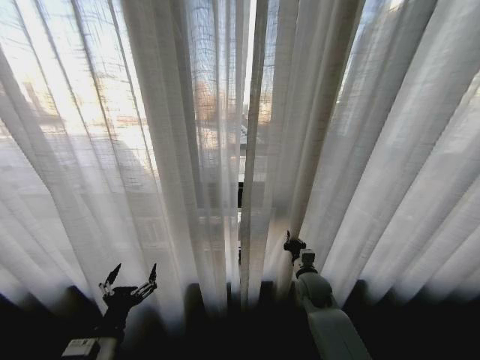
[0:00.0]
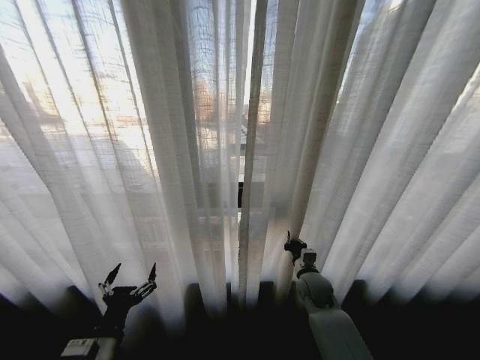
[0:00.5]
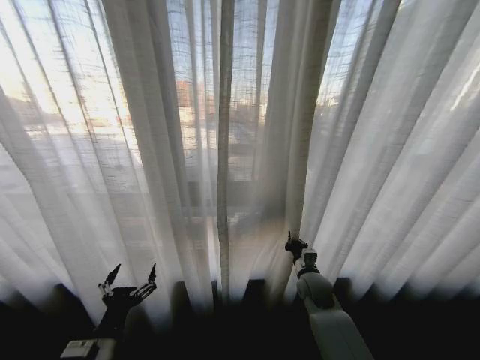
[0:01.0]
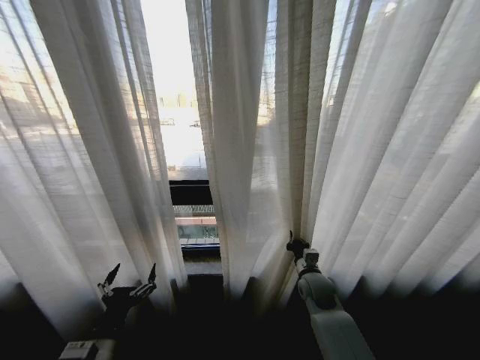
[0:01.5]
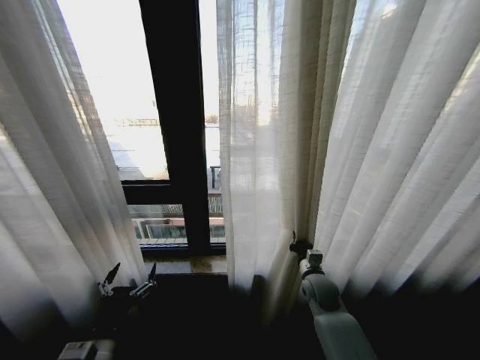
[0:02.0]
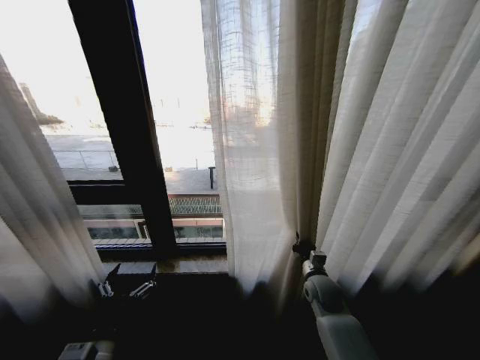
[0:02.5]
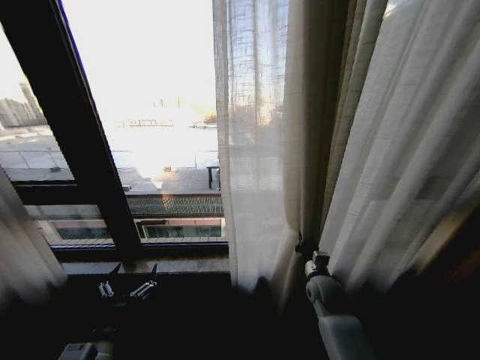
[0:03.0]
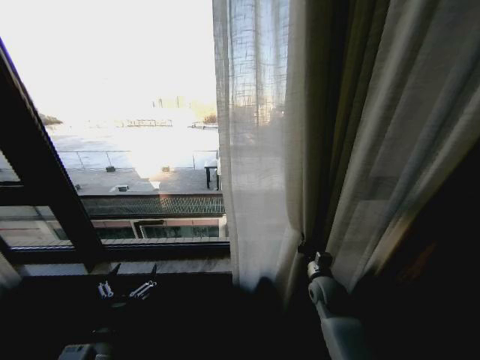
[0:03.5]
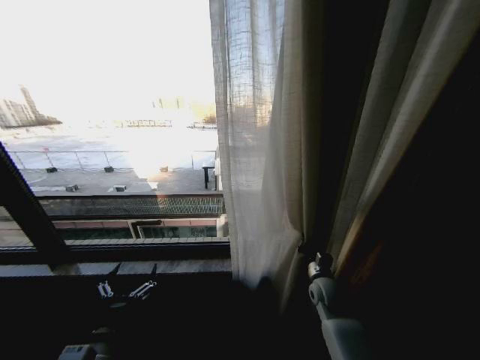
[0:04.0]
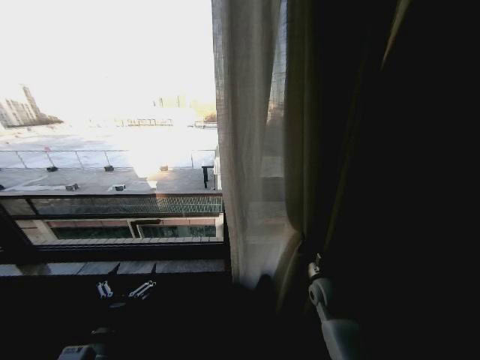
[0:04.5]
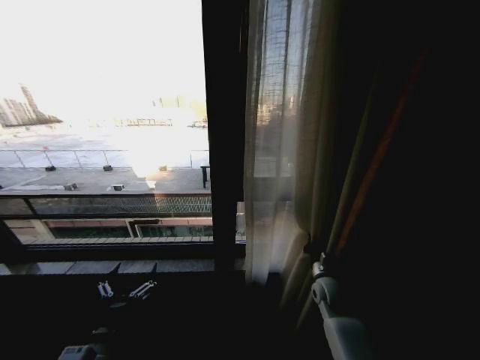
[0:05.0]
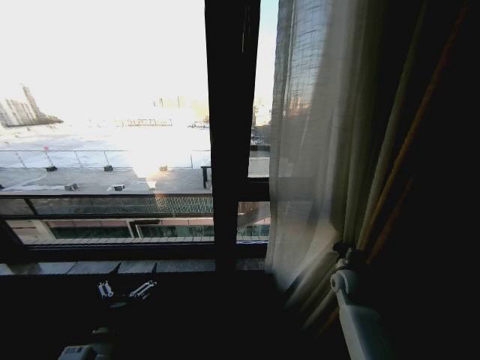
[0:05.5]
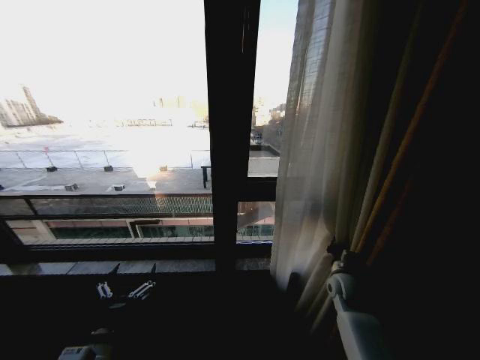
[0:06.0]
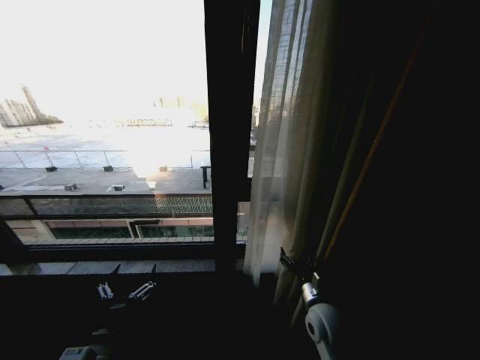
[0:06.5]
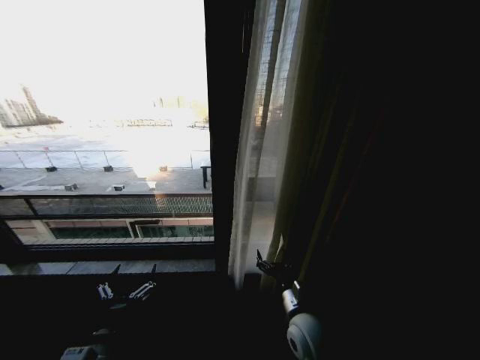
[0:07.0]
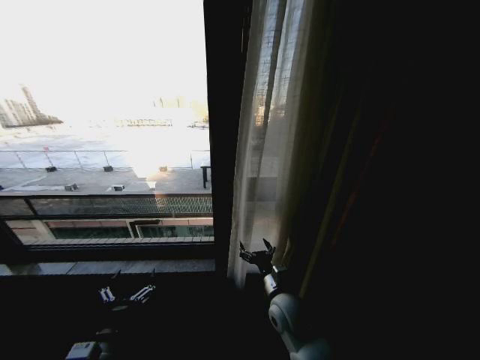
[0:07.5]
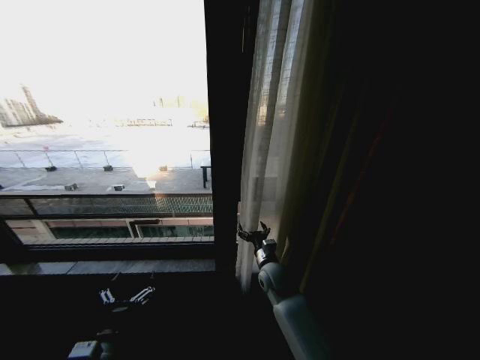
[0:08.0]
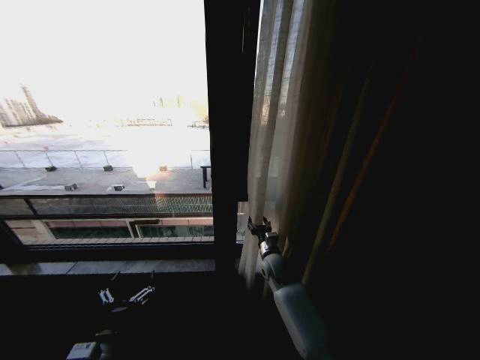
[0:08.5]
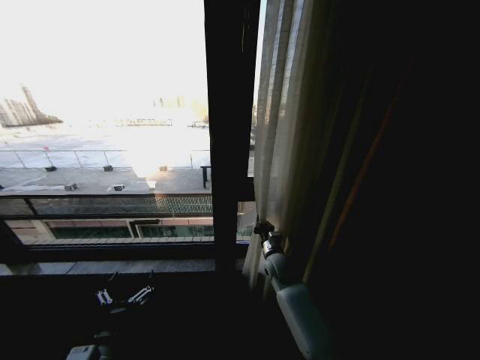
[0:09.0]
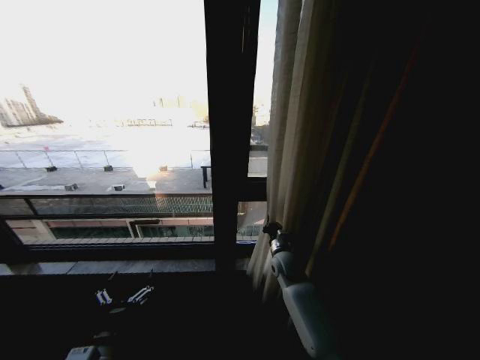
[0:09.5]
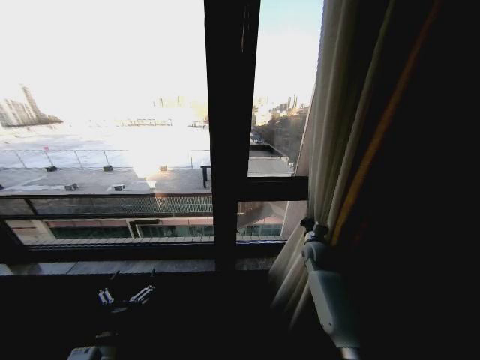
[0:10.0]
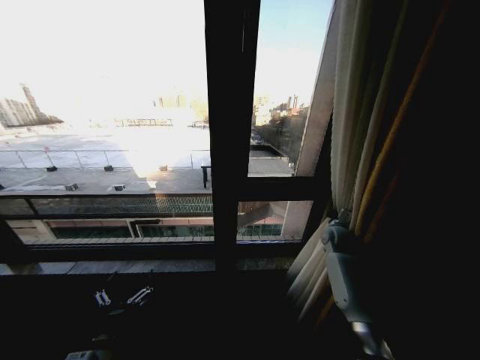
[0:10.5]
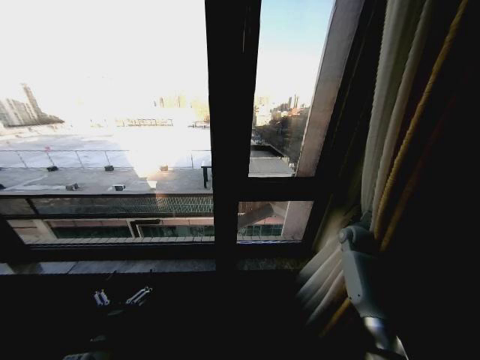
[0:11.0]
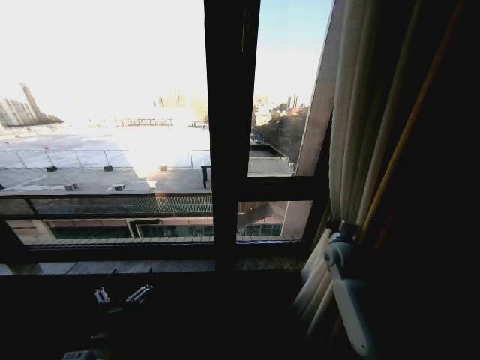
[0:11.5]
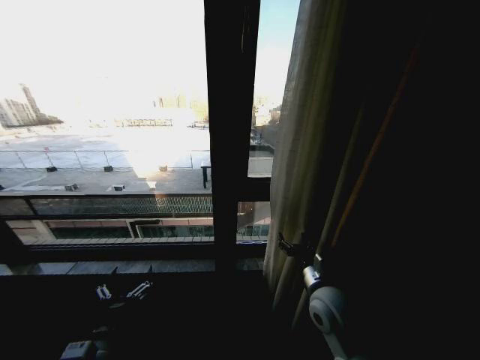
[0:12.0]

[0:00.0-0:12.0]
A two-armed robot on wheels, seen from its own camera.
Task of the whole recording: Open the curtains by pulling them apart, changing their state from closed to fully open.
0:04.0 to 0:06.0: The right gripper moves to the right, about 5 cm.
0:06.0 to 0:08.0: The right gripper is displaced to the left by about 20 cm, and opens its fingers.
0:08.0 to 0:10.0: The right gripper moves to the right and forward, about 20 cm, and closes up.
0:10.0 to 0:12.0: The right gripper moves backward and to the left, approximately 20 cm, and opens.

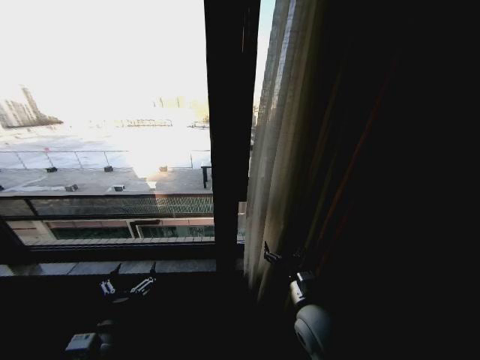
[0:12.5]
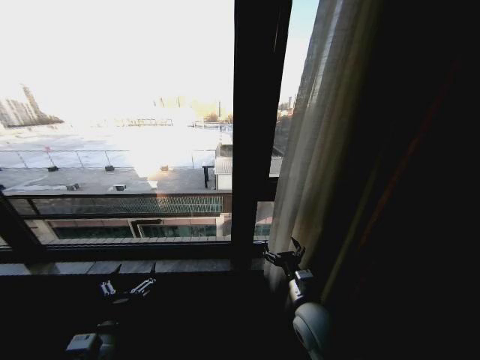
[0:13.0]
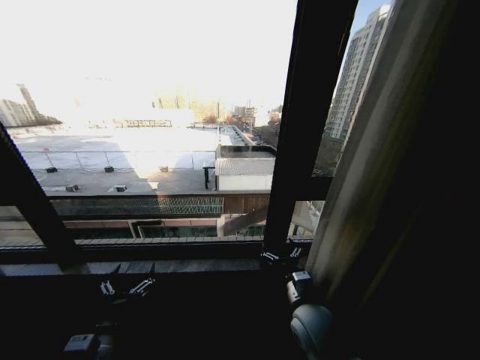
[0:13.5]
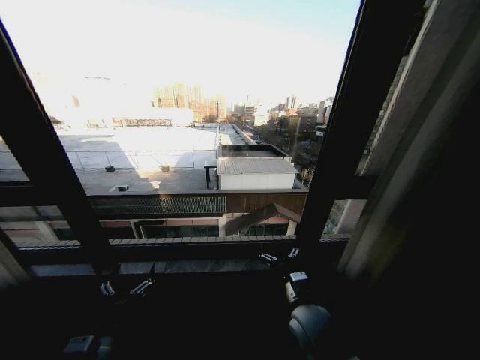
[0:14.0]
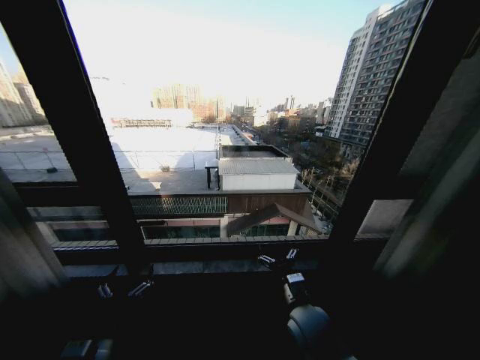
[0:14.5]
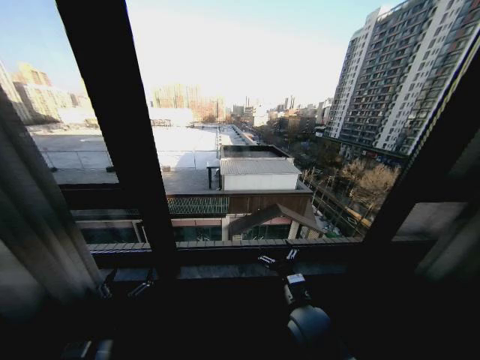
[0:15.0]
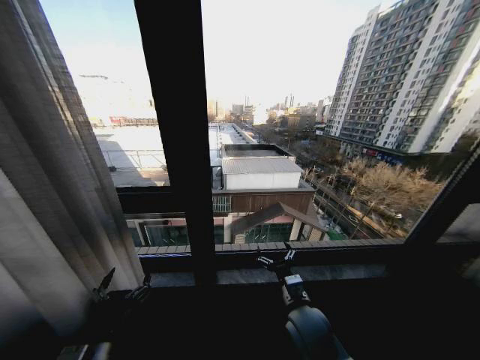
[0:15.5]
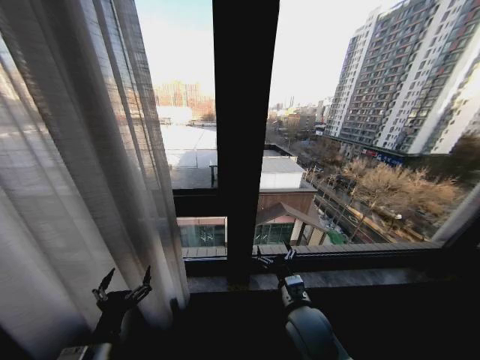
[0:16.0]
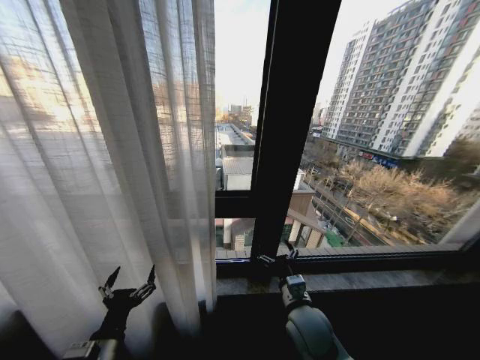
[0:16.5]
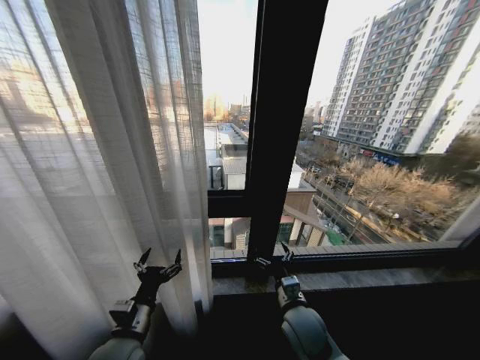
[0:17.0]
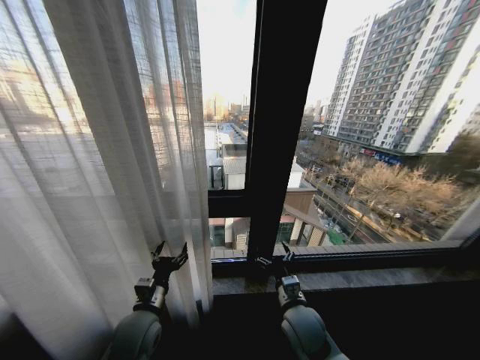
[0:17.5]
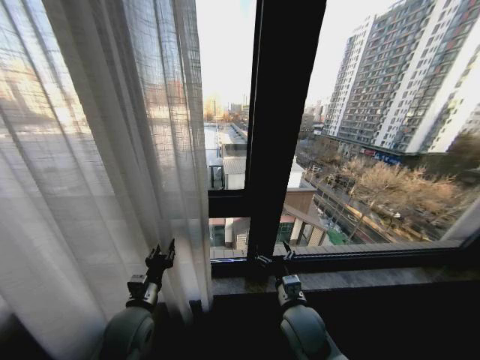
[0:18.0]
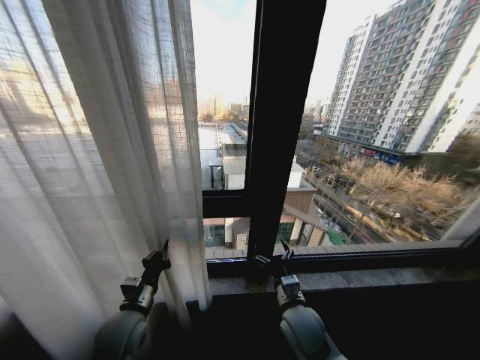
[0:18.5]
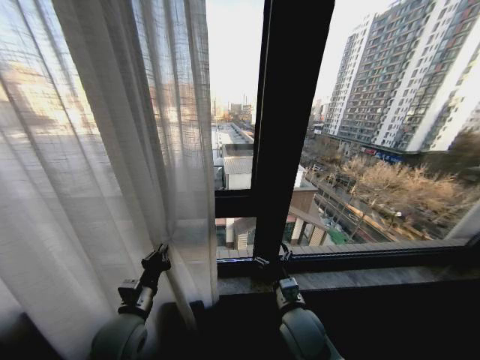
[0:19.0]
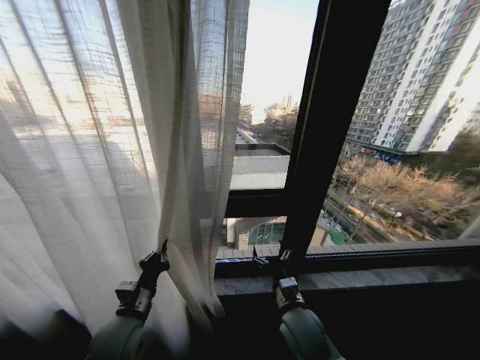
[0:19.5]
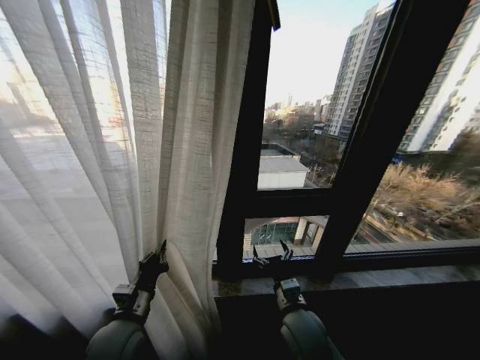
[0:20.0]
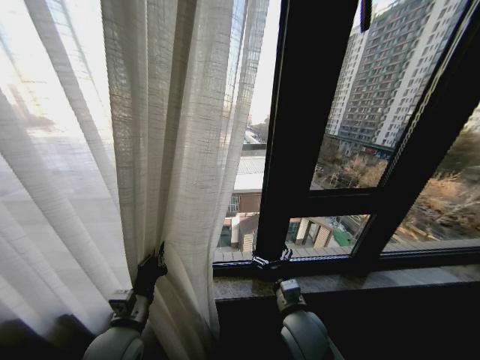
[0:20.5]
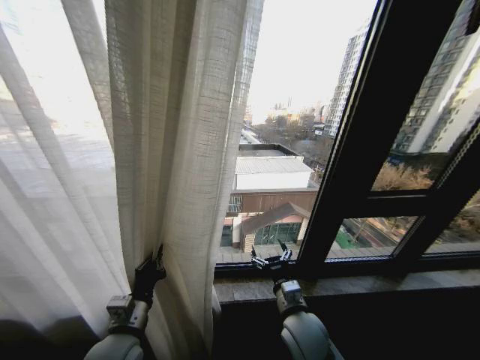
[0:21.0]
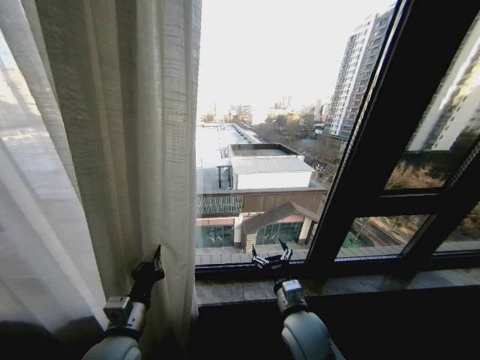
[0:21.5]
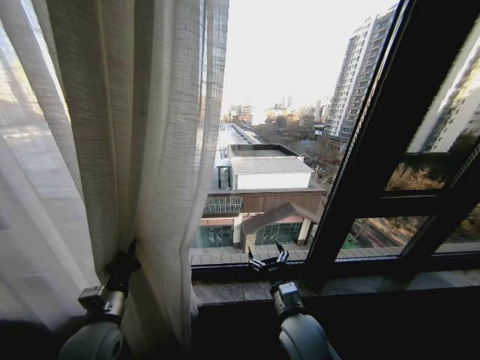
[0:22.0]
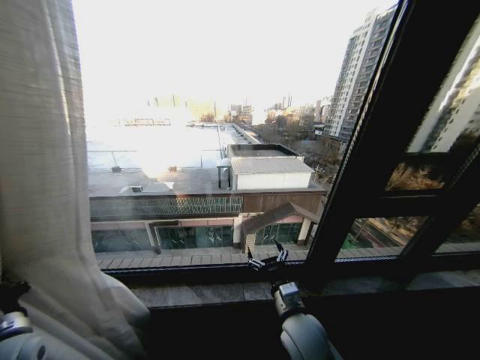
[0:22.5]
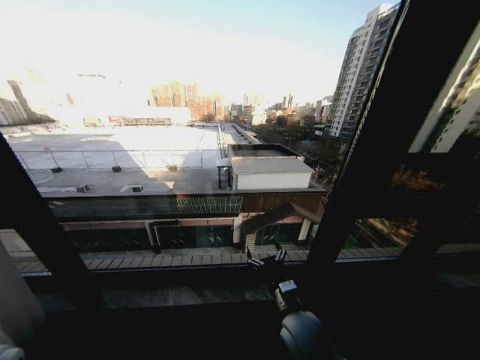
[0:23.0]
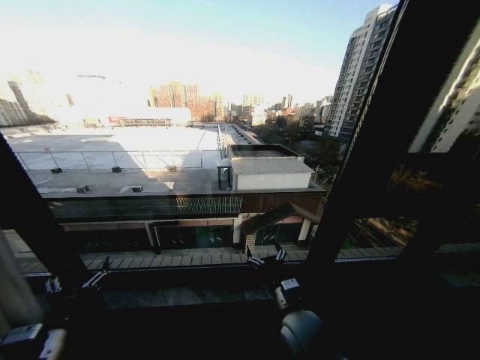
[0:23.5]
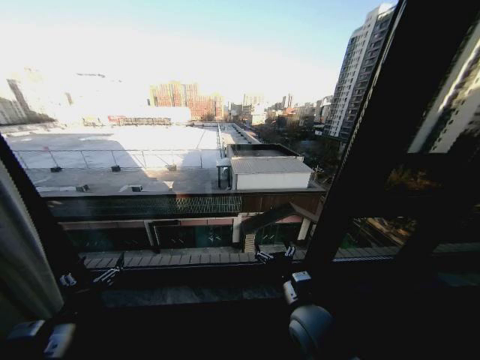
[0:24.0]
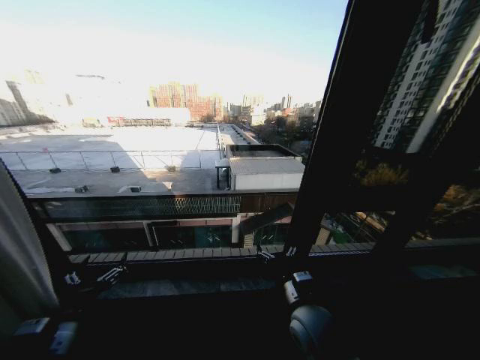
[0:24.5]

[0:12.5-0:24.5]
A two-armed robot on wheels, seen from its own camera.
Task of the whole recording: Open the curtains by pulling them apart, changing their state from closed to fully open.
0:16.5 to 0:18.5: The left gripper moves forward, approximately 10 cm, and closes up.
0:20.5 to 0:22.5: The left gripper shifts some 20 cm to the left.
0:22.5 to 0:24.5: The left gripper travels to the right by some 10 cm, and opens.
